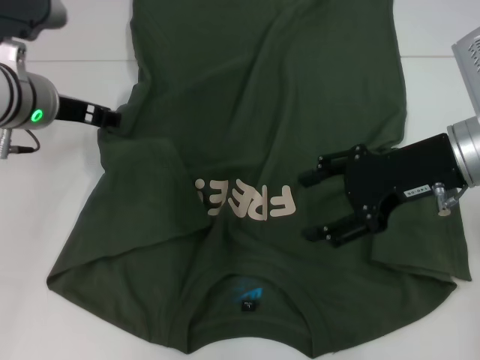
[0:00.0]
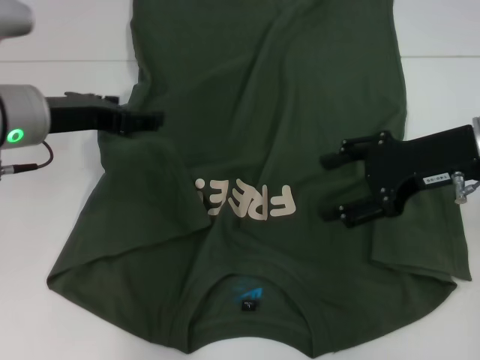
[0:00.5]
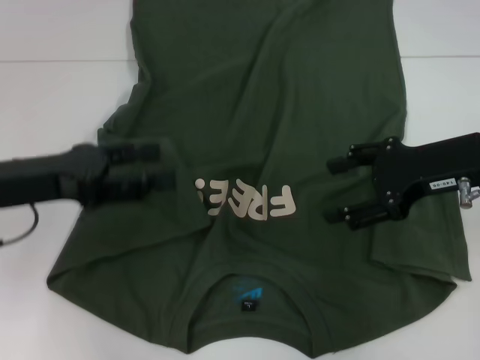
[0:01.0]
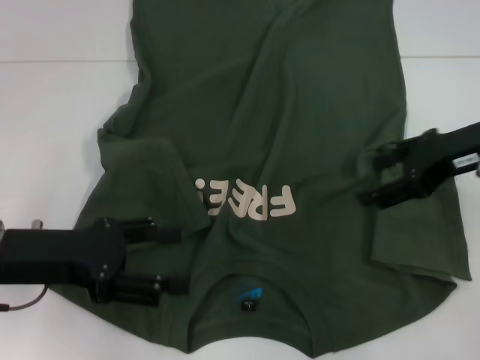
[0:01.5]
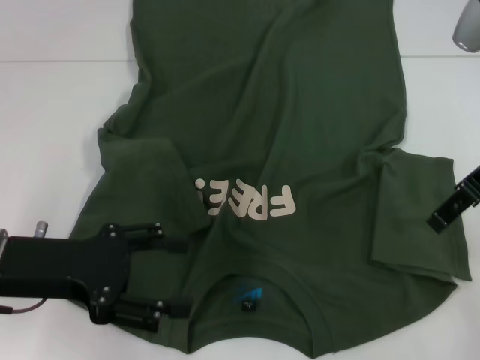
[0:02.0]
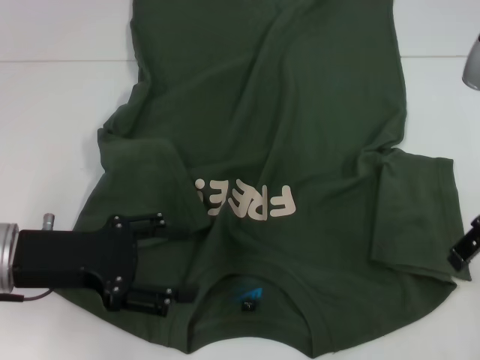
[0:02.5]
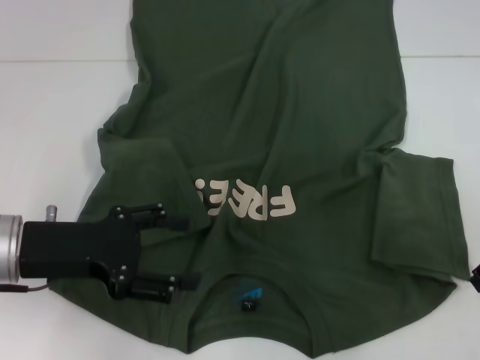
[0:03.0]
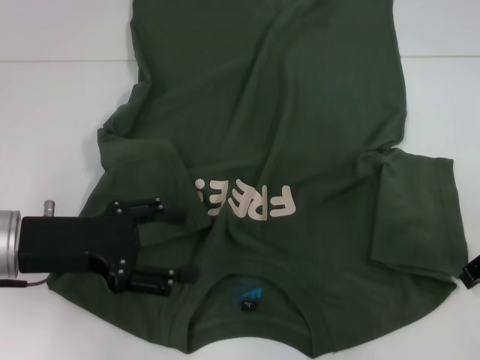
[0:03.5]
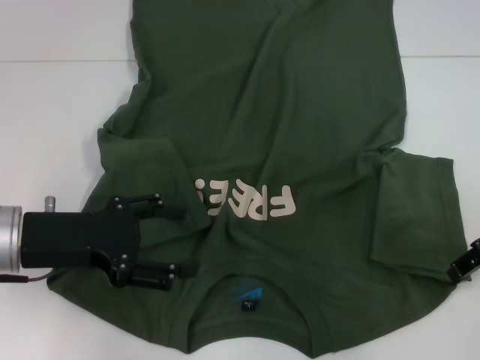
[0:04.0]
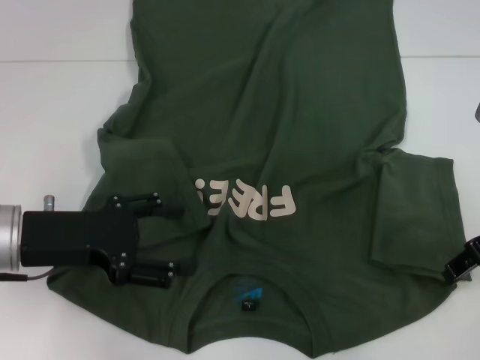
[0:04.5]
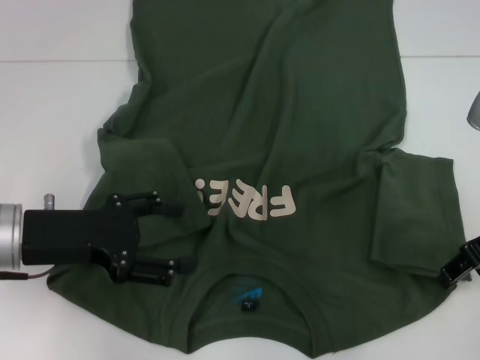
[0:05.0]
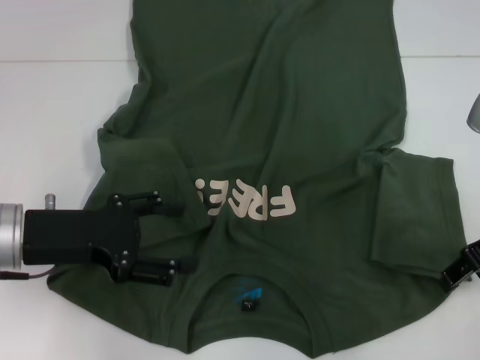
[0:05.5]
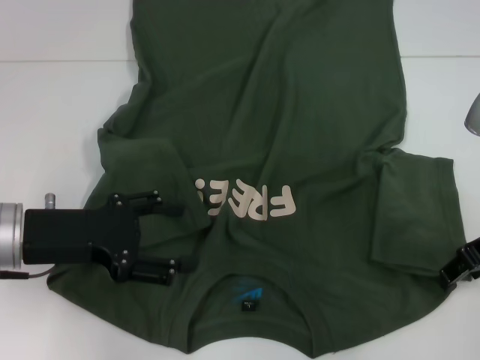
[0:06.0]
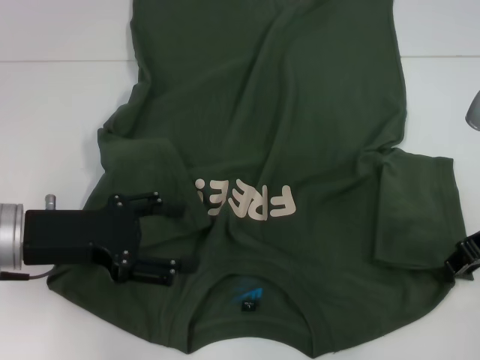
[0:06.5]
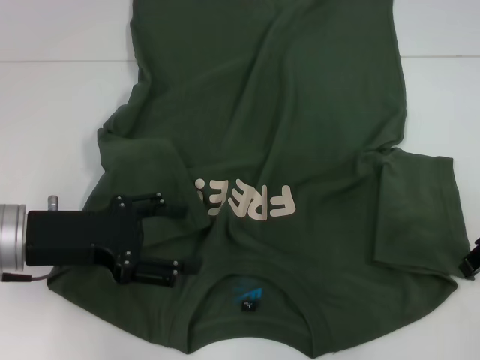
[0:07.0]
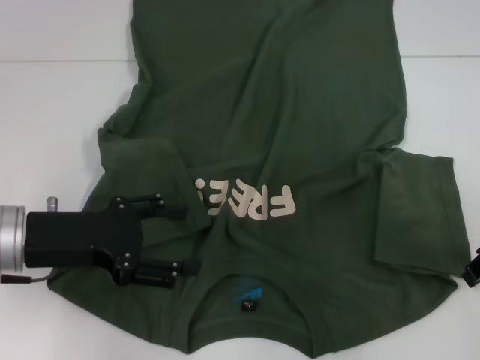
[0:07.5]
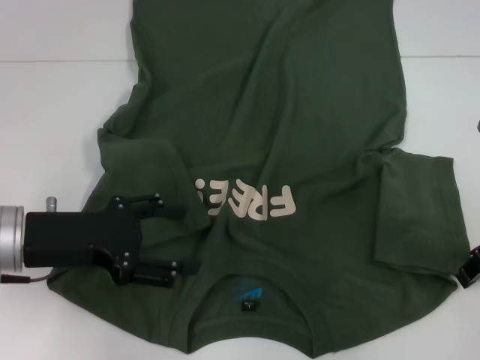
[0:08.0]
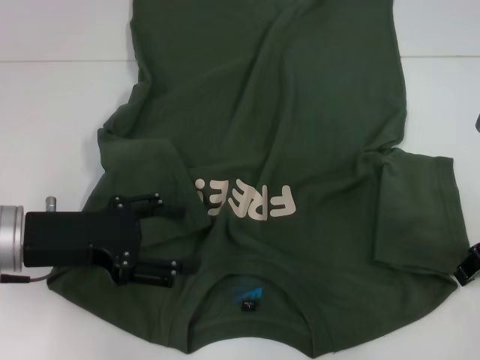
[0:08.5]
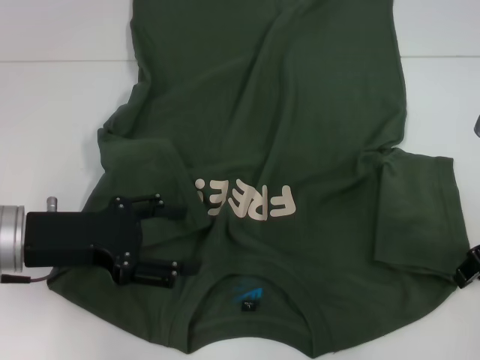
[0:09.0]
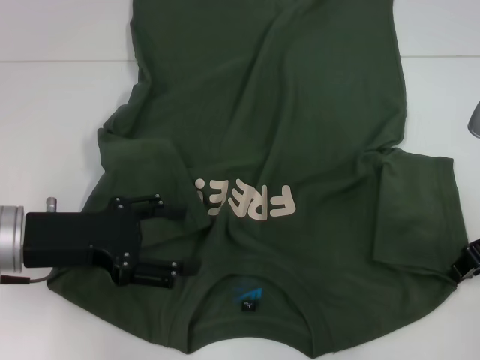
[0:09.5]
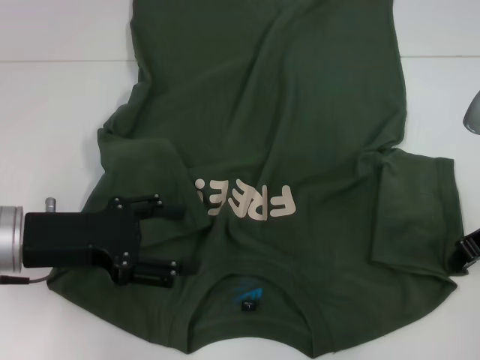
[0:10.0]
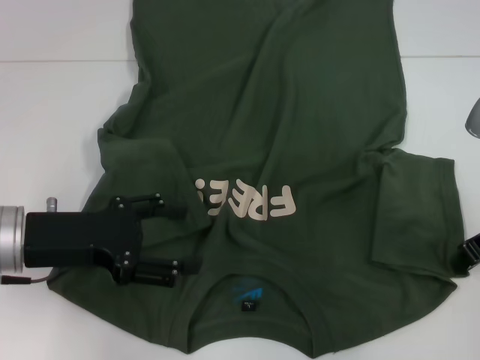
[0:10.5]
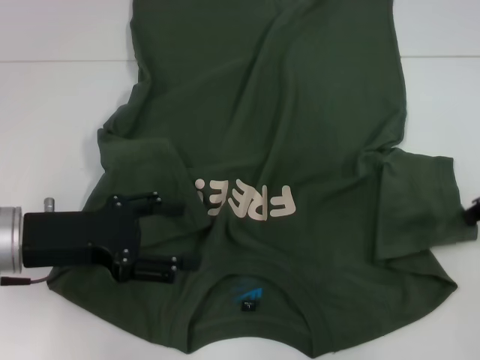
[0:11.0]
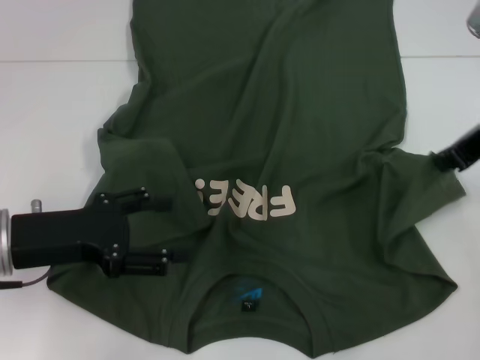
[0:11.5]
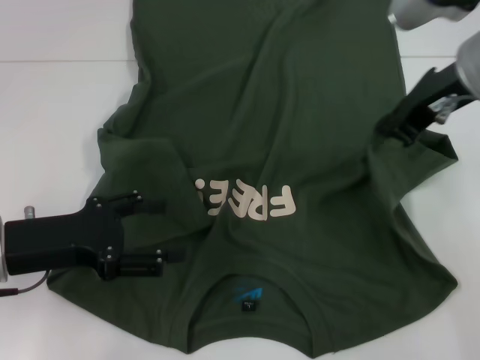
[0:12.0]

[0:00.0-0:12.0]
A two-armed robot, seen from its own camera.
0:00.0 to 0:02.0: The left gripper travels backward by about 15 cm, and opens up; the right gripper is displaced upward by approximately 5 cm.
0:02.0 to 0:04.0: The right gripper shifts roughly 10 cm downward.
0:04.0 to 0:08.0: There are only small adjustments of the grippers.
0:08.0 to 0:10.0: Both grippers stay about where they are.
0:10.0 to 0:12.0: The right gripper heads upward and to the left, covering some 15 cm.

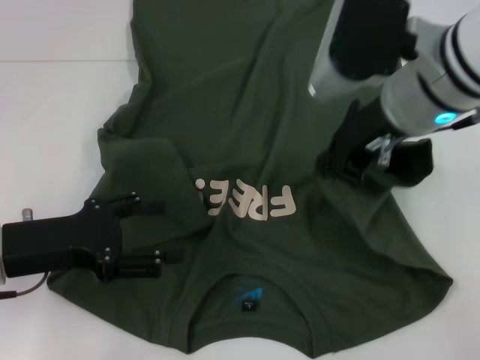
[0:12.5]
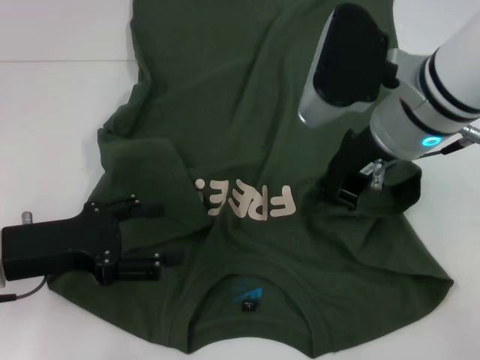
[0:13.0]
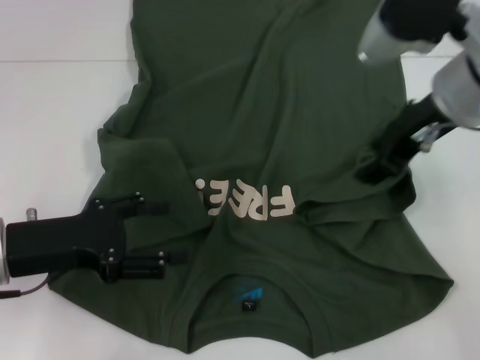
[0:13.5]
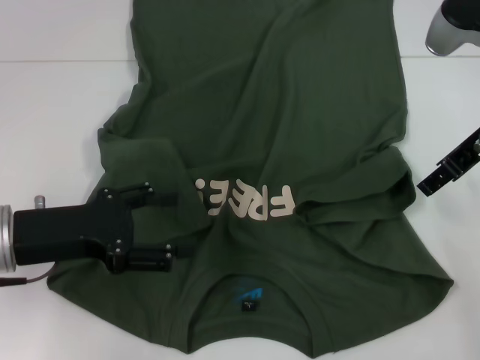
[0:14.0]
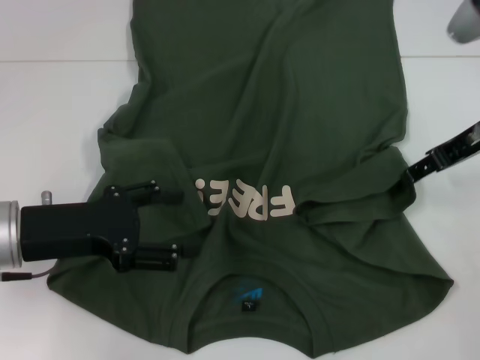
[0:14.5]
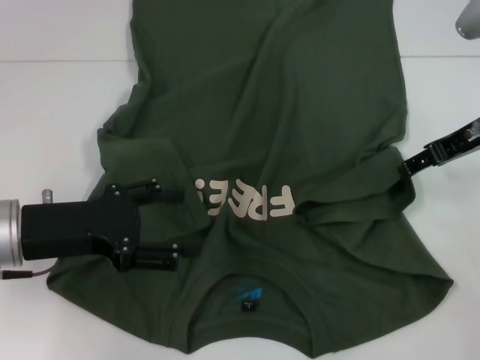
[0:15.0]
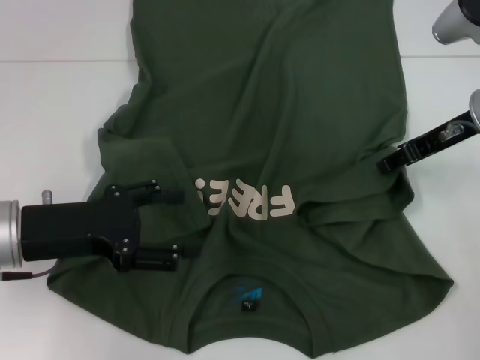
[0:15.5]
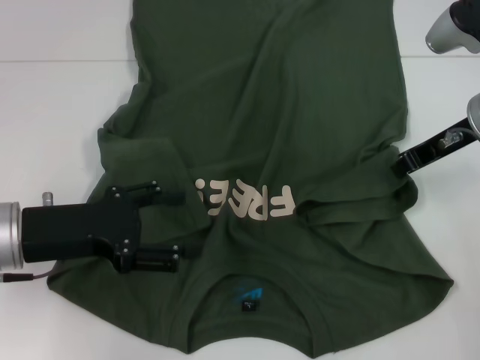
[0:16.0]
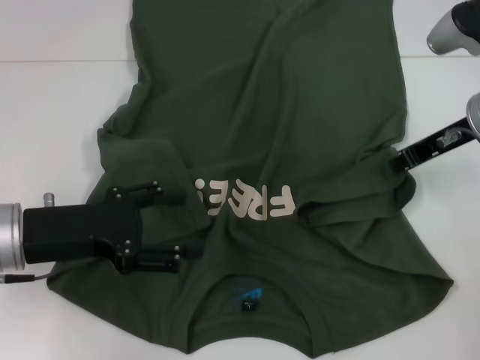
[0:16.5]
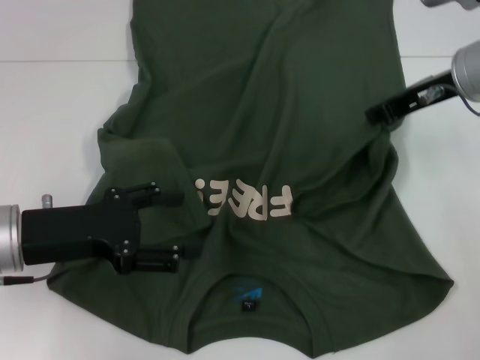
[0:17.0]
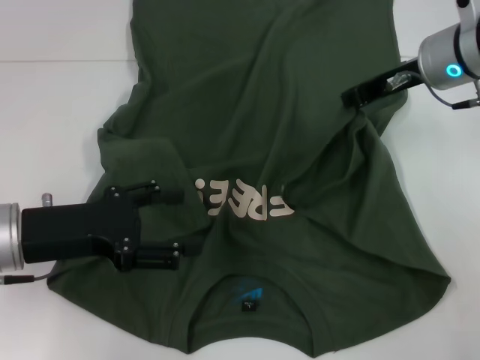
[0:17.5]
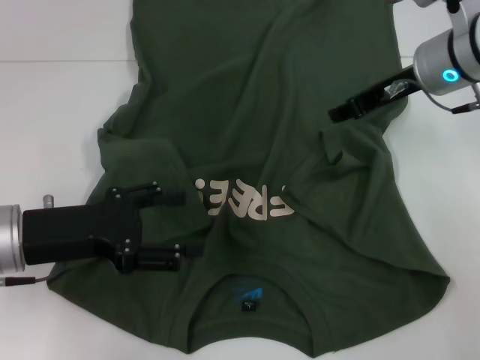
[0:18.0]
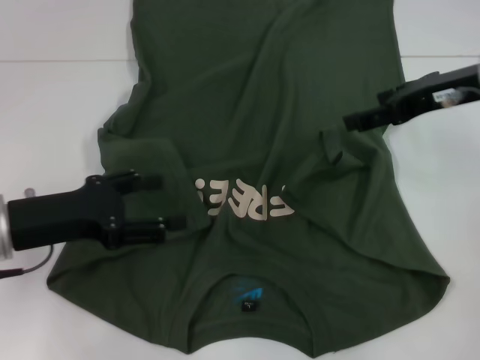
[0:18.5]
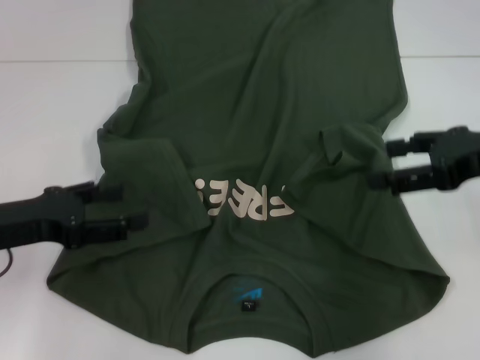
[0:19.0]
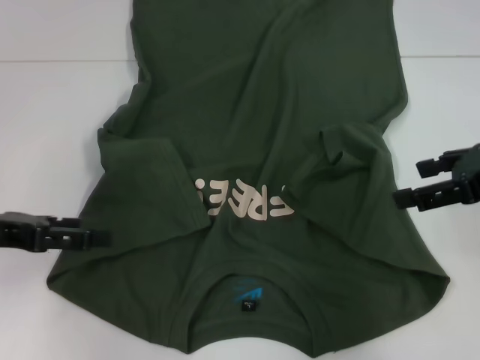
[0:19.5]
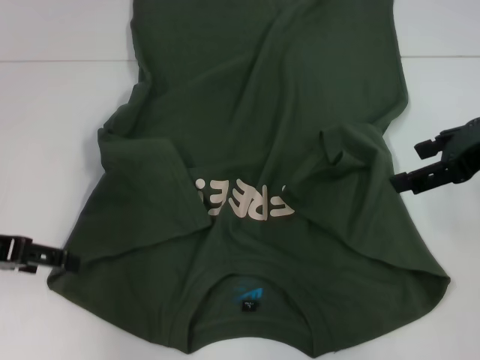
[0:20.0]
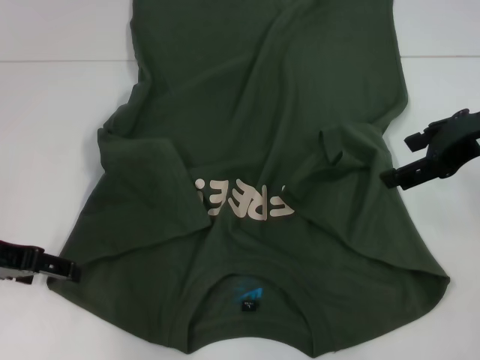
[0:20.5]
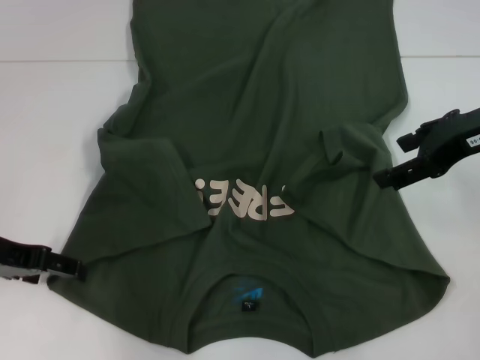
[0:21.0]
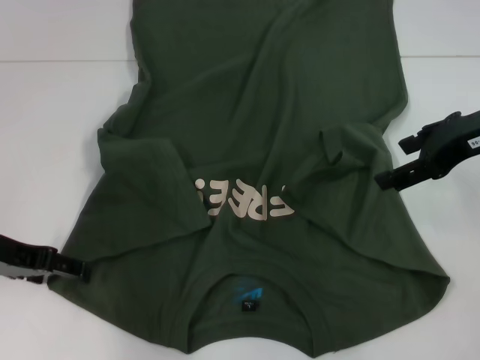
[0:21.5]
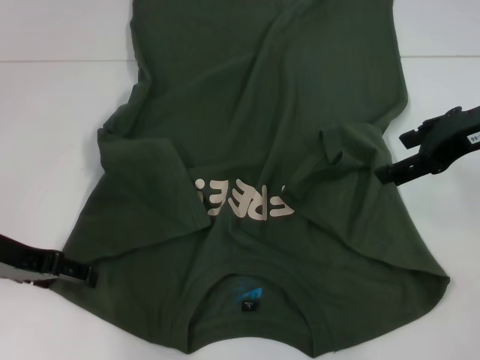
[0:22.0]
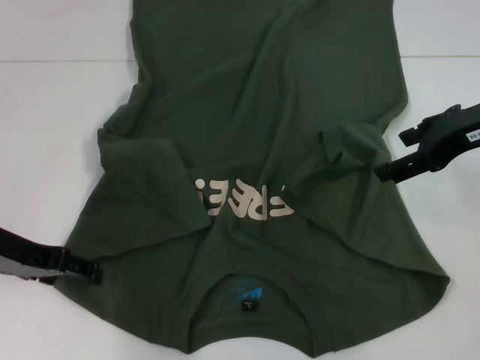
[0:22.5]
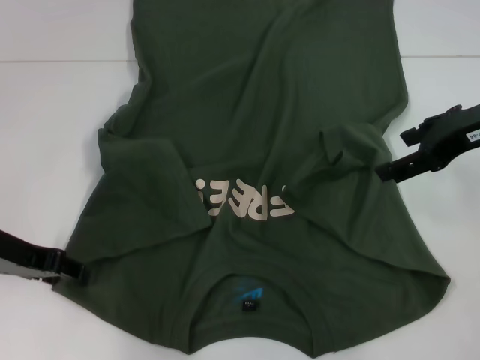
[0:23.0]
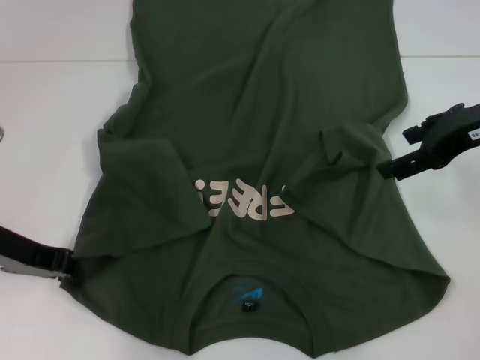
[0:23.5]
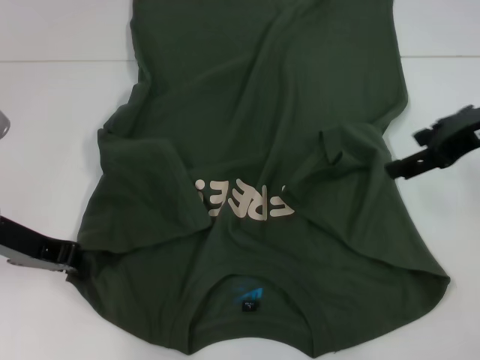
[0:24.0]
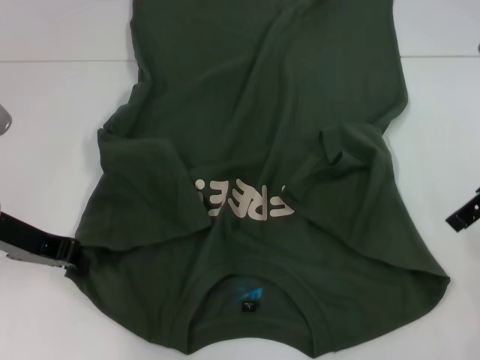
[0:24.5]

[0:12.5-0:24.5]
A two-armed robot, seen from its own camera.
Step, 0:12.5 to 0:18.0: Fold the bottom right sleeve with your right hand.
Step, 0:18.5 to 0:23.0: Grab the bottom left corner with your left hand.
0:12.5 to 0:14.5: The right gripper shifts some 10 cm to the right, and opens up.
0:14.5 to 0:16.5: The right gripper closes up.
0:16.5 to 0:18.5: The right gripper moves approximately 5 cm, and opens its fingers.
0:18.5 to 0:20.5: The left gripper moves roughly 5 cm.
0:20.5 to 0:22.5: The grippers make only small movements.
0:22.5 to 0:24.5: The left gripper closes up.

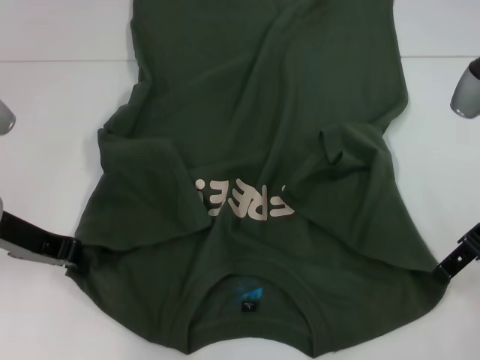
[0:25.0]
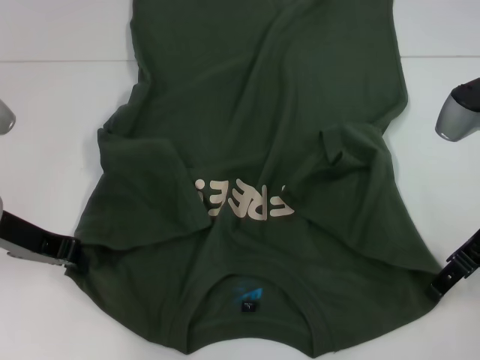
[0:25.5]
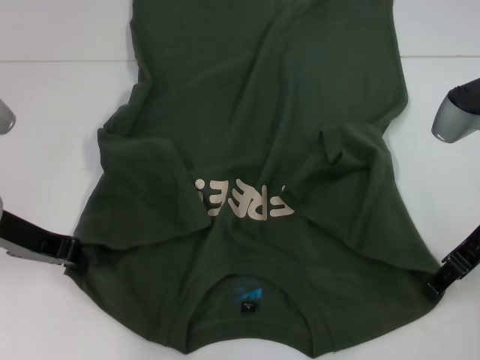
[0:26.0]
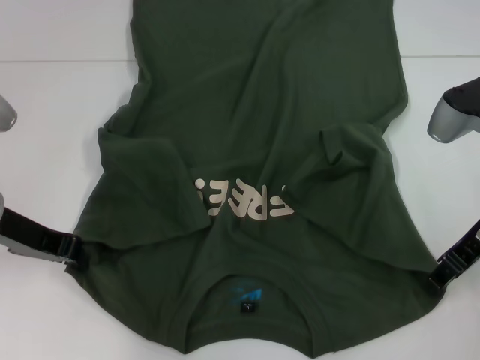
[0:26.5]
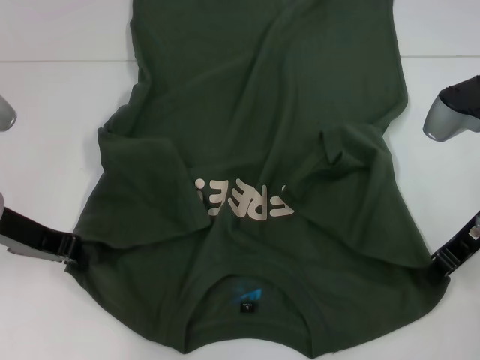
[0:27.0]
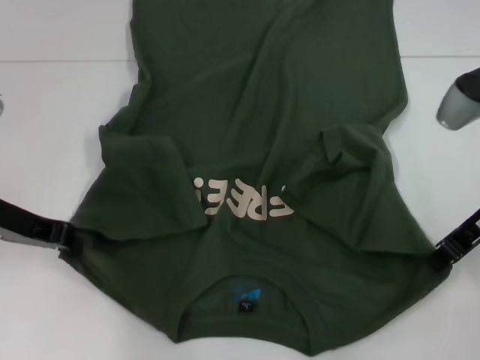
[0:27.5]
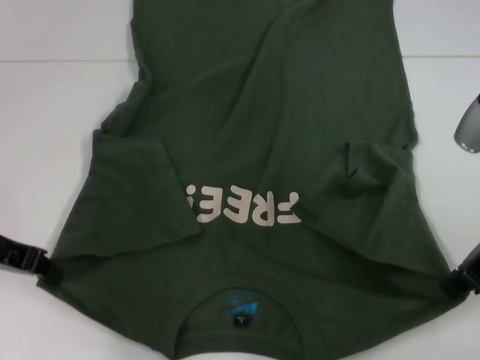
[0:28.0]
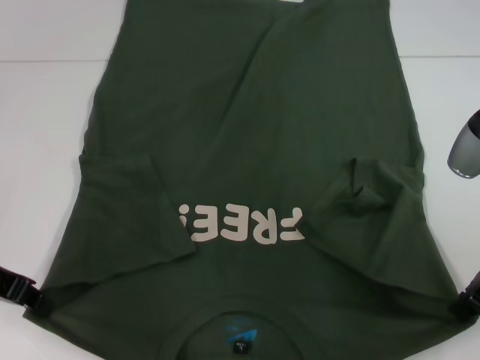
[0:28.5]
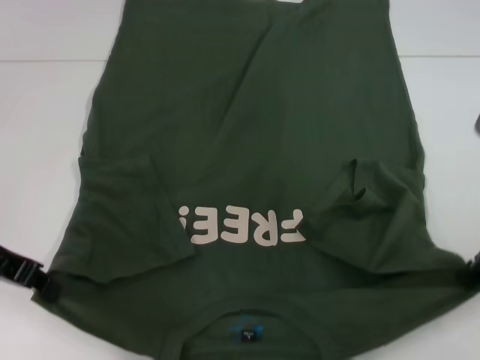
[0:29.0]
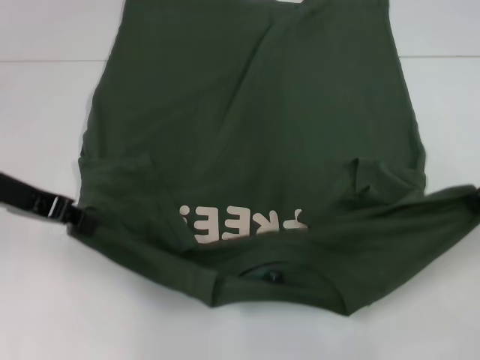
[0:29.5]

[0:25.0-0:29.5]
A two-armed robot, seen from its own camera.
Step, 0:25.0 to 0:27.0: Grab the bottom right corner with your right hand.
0:25.0 to 0:27.0: The right gripper closes its fingers.
0:27.0 to 0:29.5: The right gripper goes about 10 cm upward.
